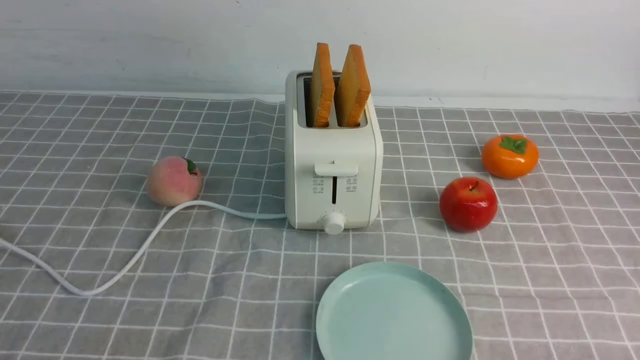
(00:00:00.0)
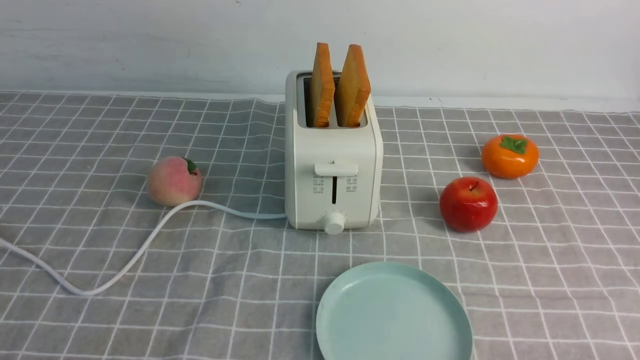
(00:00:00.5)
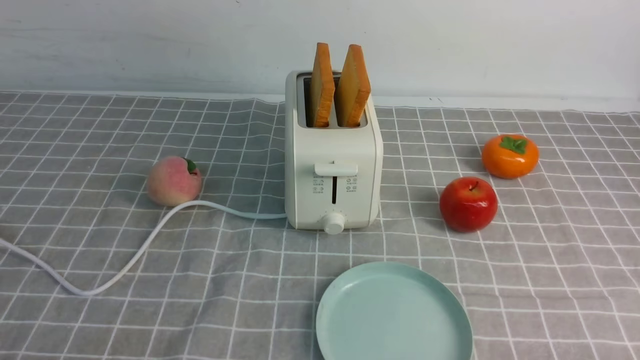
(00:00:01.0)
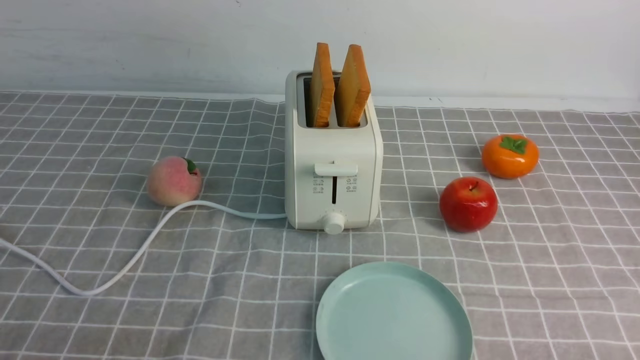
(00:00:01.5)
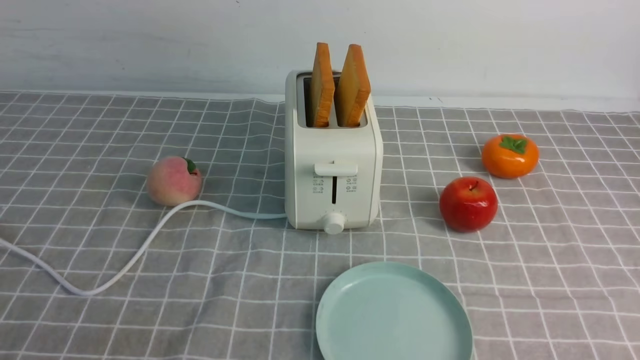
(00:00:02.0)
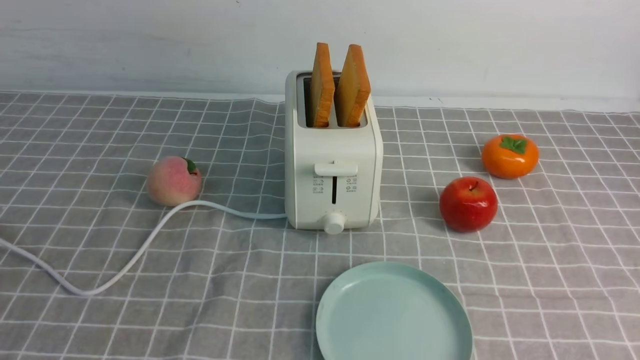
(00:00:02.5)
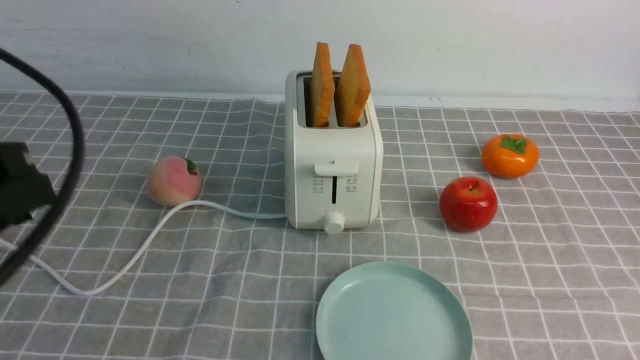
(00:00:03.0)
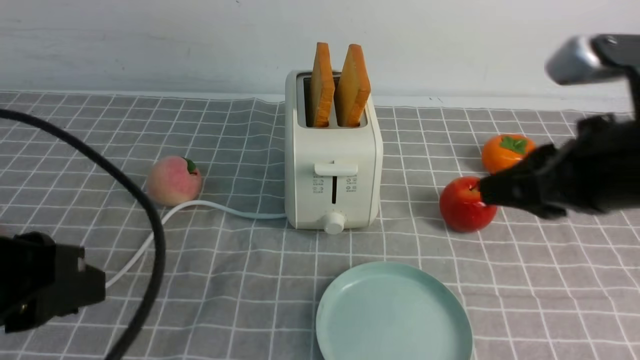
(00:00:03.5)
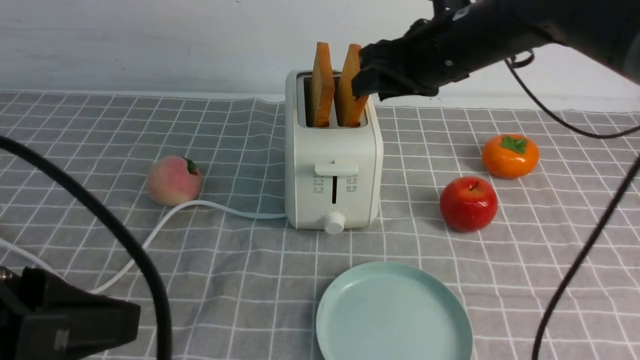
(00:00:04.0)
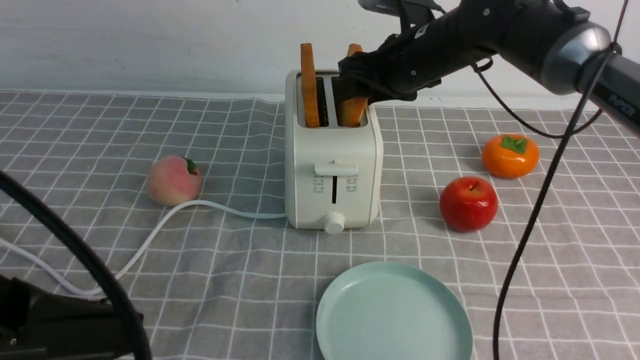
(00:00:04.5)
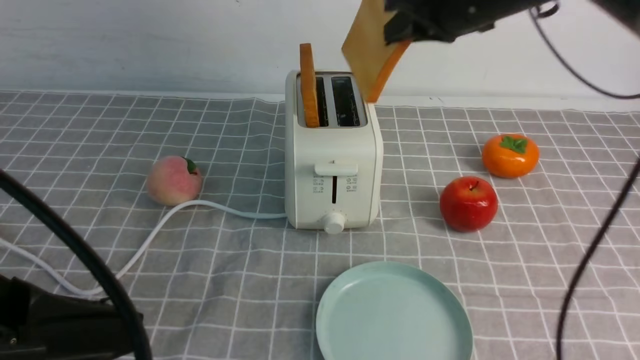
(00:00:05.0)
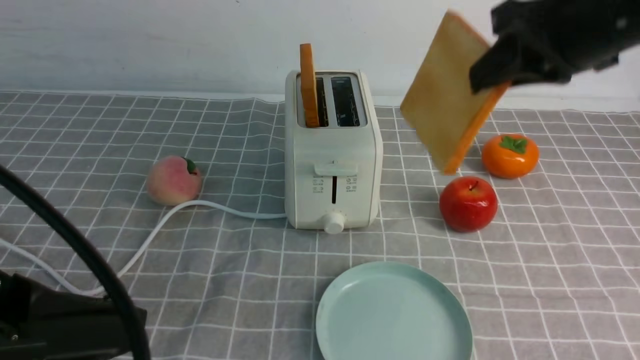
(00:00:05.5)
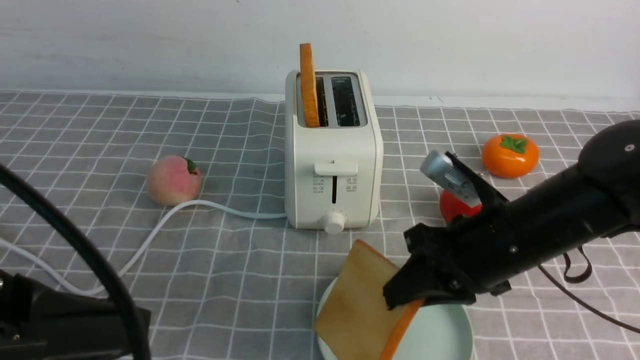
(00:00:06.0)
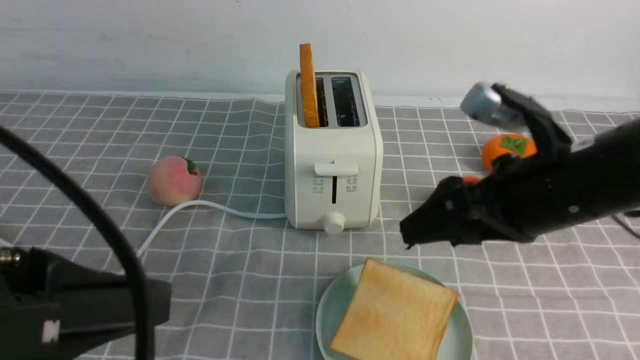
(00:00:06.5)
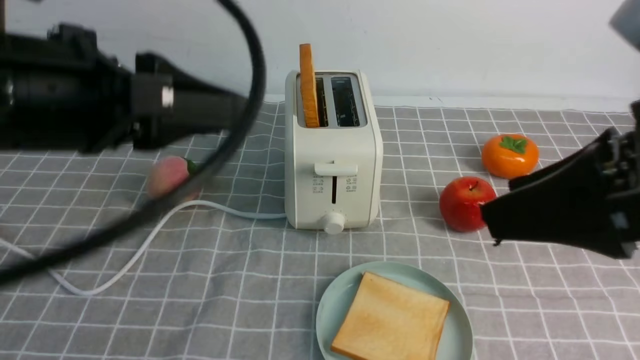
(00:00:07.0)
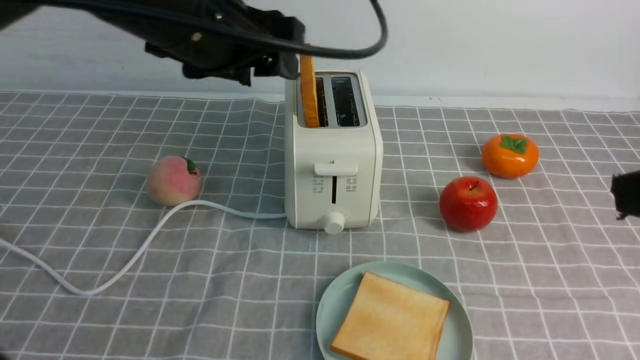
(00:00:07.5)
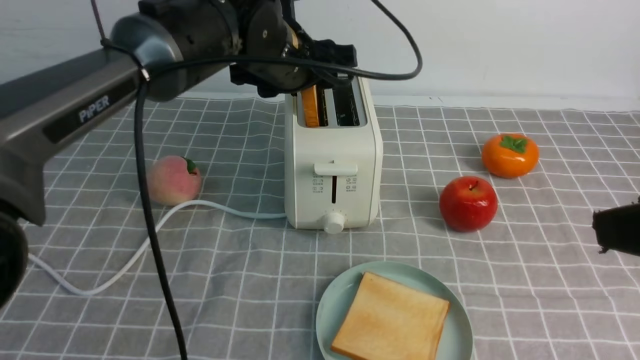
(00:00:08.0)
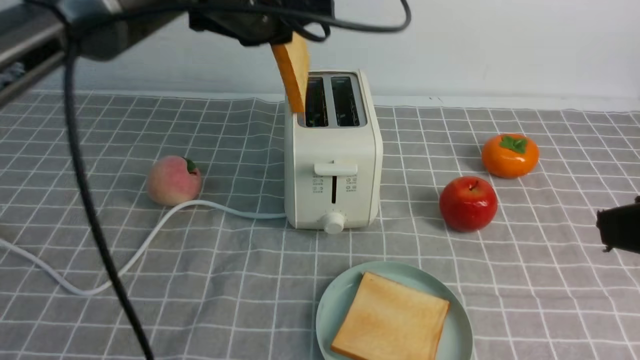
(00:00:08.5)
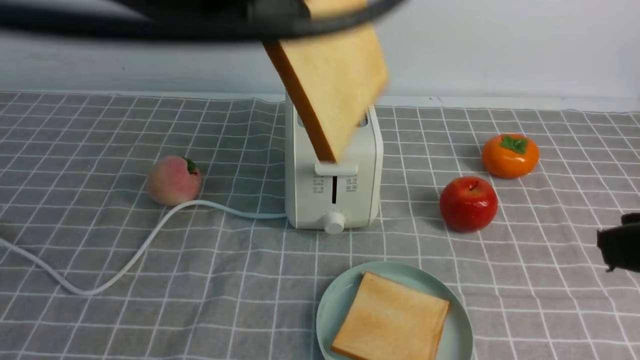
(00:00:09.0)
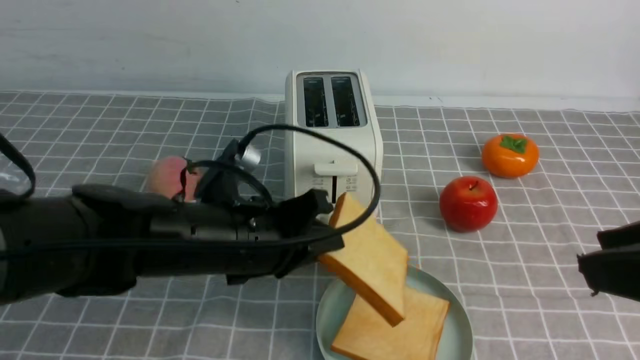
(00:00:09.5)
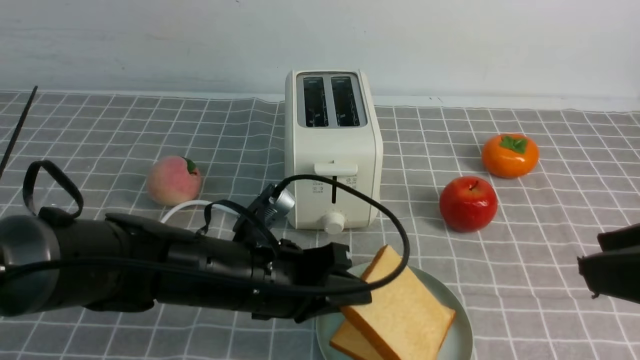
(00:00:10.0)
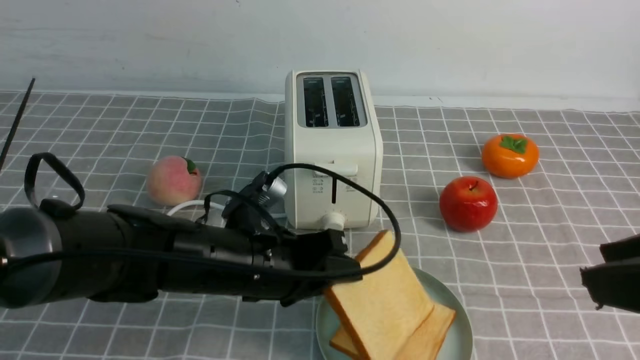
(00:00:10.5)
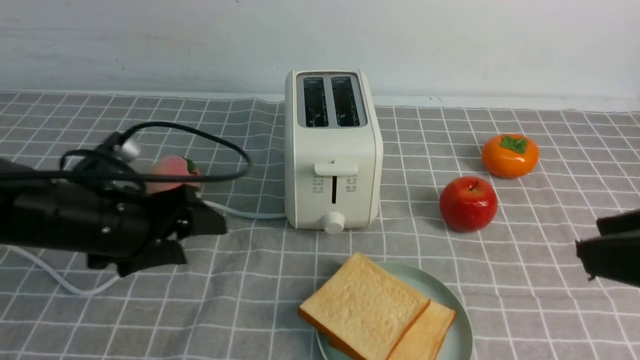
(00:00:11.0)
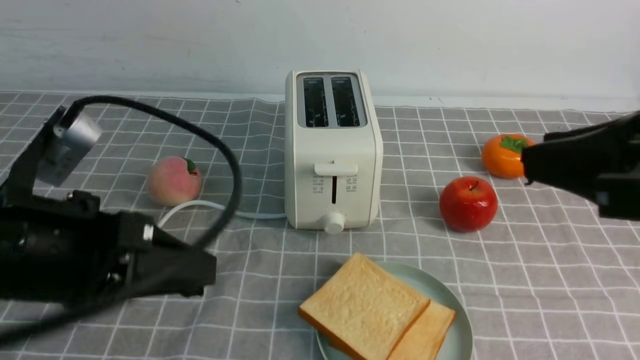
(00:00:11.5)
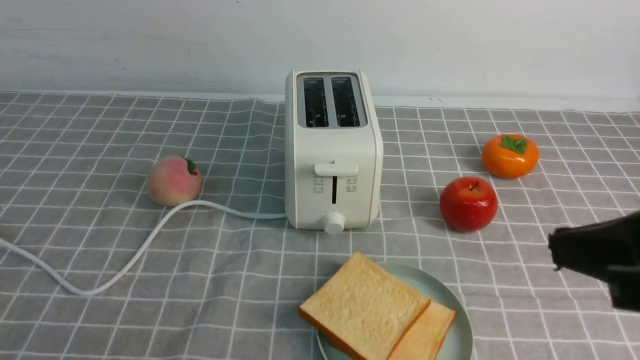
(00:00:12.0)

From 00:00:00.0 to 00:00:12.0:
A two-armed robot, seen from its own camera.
Task of the whole recording: take toasted bread from bread machine on grey coffee table place on plate.
Step, from 00:00:00.0 to 00:00:05.0: use the right arm to take out a slice of bread.
Step, from 00:00:05.5 to 00:00:06.5: use the right arm to put a slice of bread into the plate.
Step, from 00:00:07.0 to 00:00:08.5: use the left arm to take out a slice of bread.
Step, from 00:00:09.0 to 00:00:10.5: use the left arm to put a slice of bread into the empty plate.
From 00:00:02.0 to 00:00:04.0: The right gripper heads forward and to the left, covering approximately 40 cm. The left gripper is displaced upward, to the right and forward by some 15 cm.
From 00:00:04.0 to 00:00:06.0: The right gripper goes some 15 cm backward and downward, and closes its fingers.
From 00:00:06.0 to 00:00:08.0: The right gripper moves upward, backward and to the right, approximately 20 cm, and opens. Meanwhile the left gripper shifts approximately 35 cm forward and to the right.
From 00:00:08.0 to 00:00:10.0: The left gripper is displaced backward and downward by approximately 20 cm, and closes its fingers.
From 00:00:10.0 to 00:00:12.0: The left gripper shifts some 30 cm backward, to the left and upward, and opens, then closes once more. The right gripper closes.

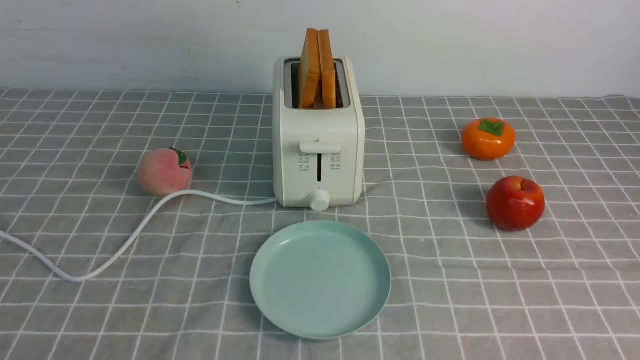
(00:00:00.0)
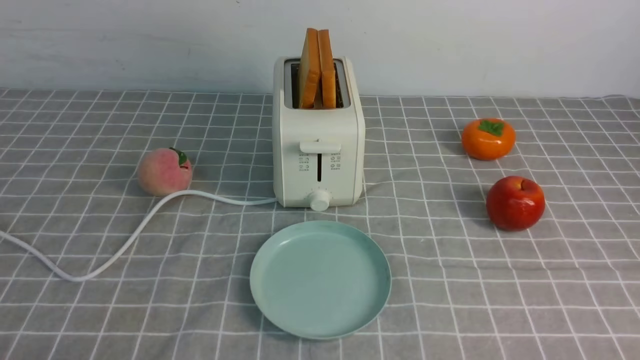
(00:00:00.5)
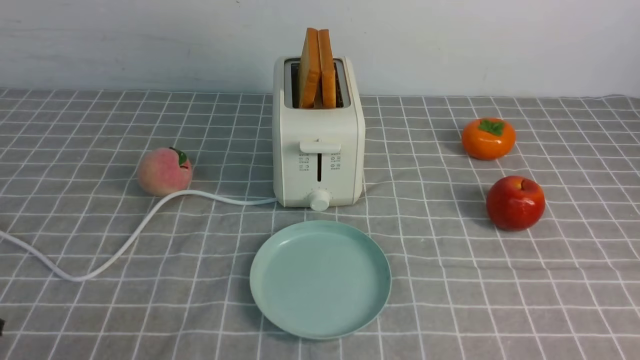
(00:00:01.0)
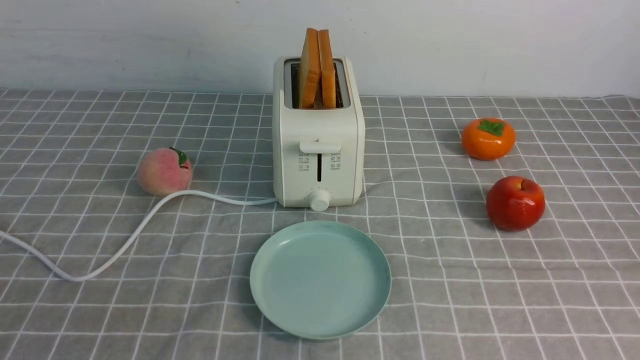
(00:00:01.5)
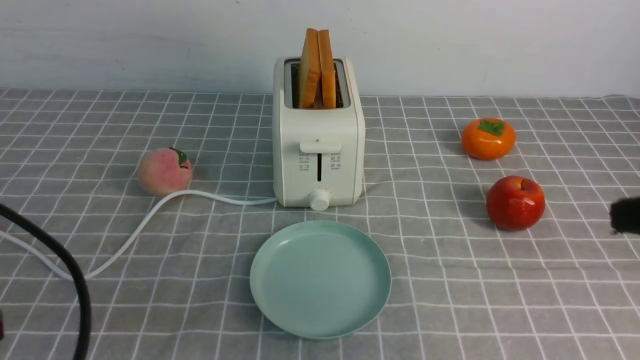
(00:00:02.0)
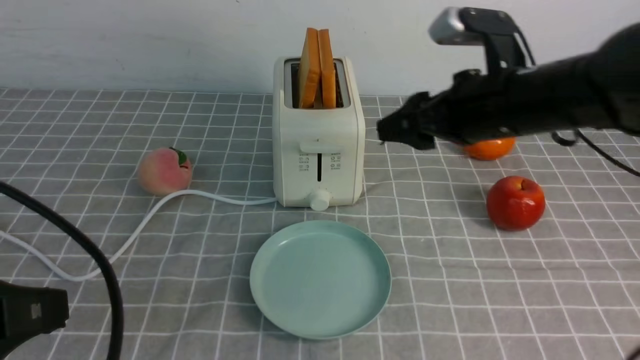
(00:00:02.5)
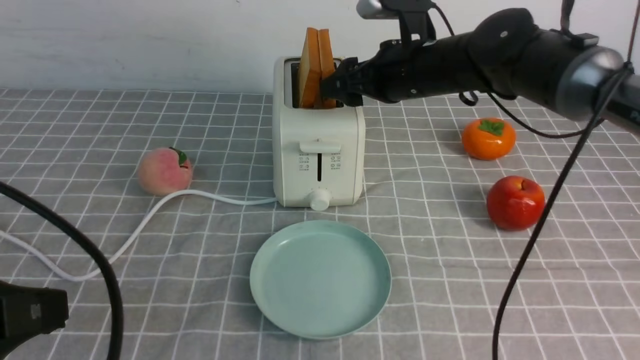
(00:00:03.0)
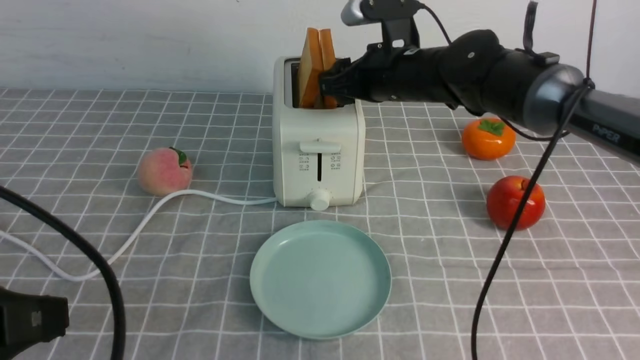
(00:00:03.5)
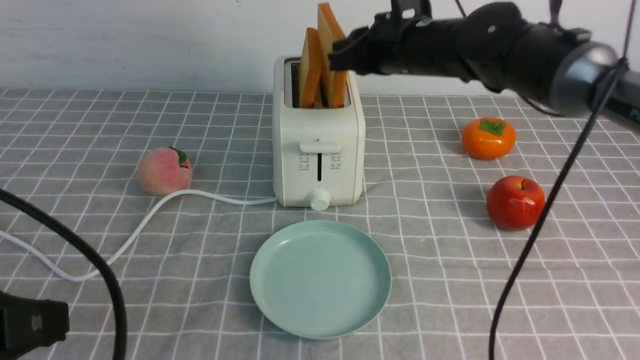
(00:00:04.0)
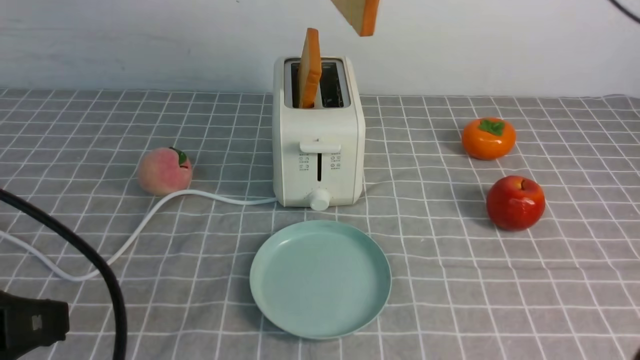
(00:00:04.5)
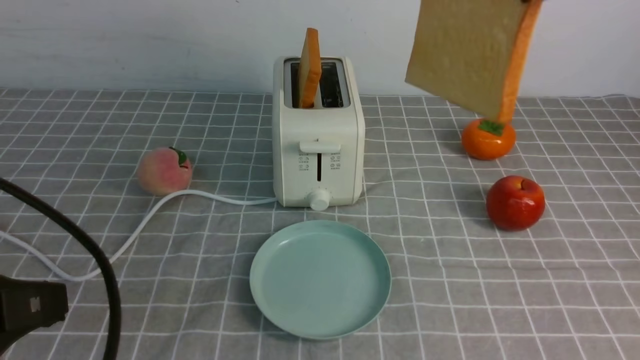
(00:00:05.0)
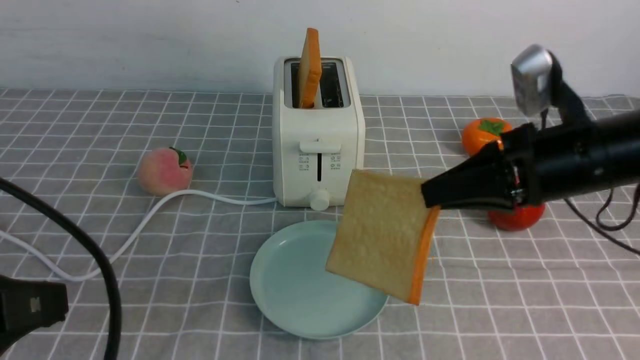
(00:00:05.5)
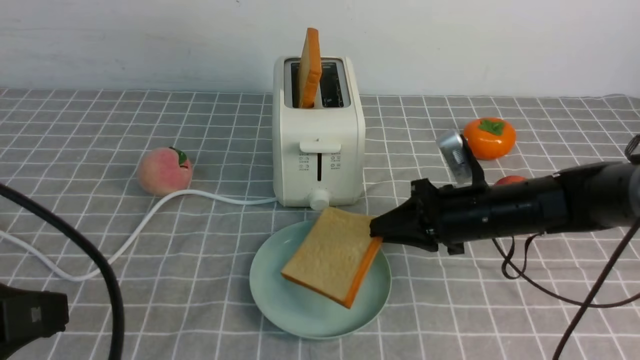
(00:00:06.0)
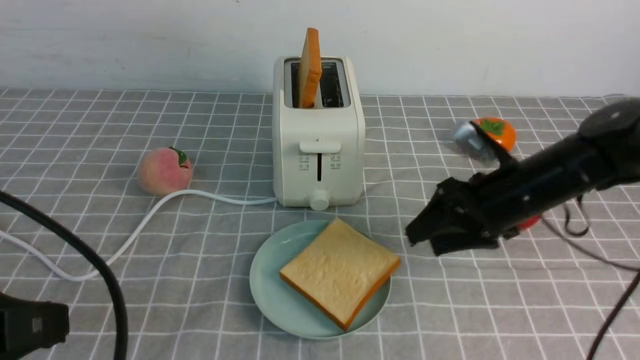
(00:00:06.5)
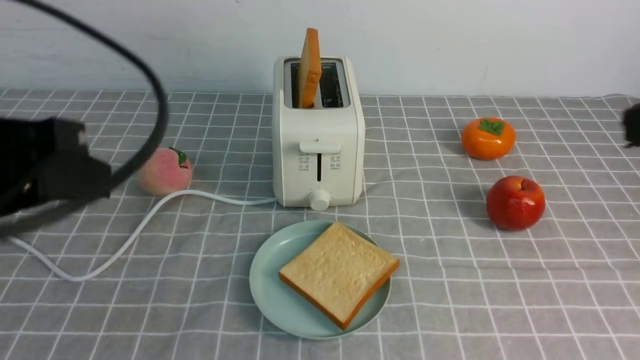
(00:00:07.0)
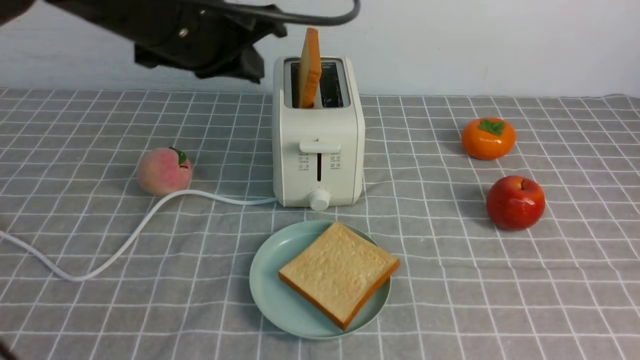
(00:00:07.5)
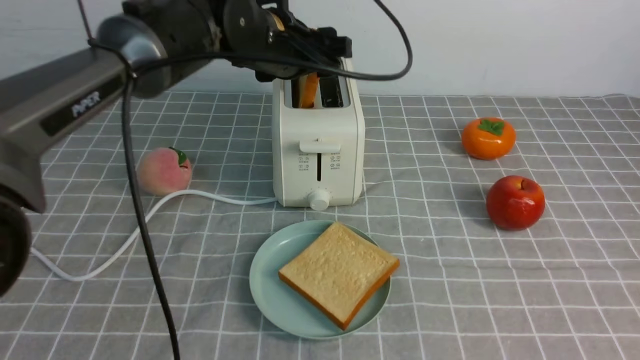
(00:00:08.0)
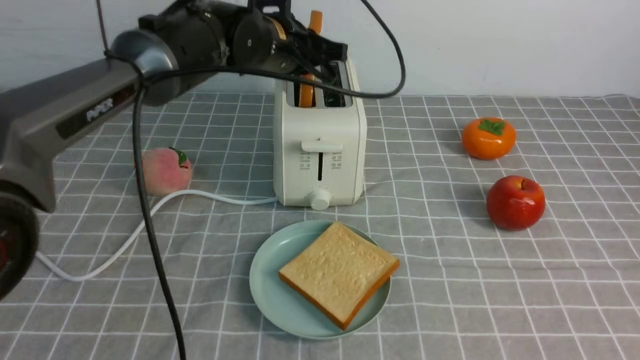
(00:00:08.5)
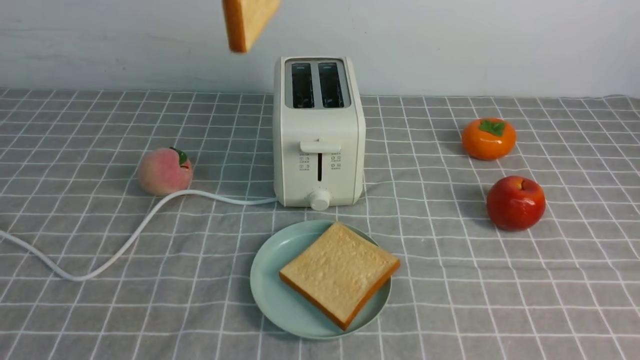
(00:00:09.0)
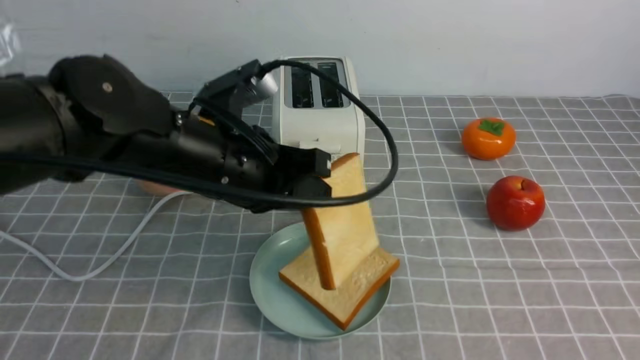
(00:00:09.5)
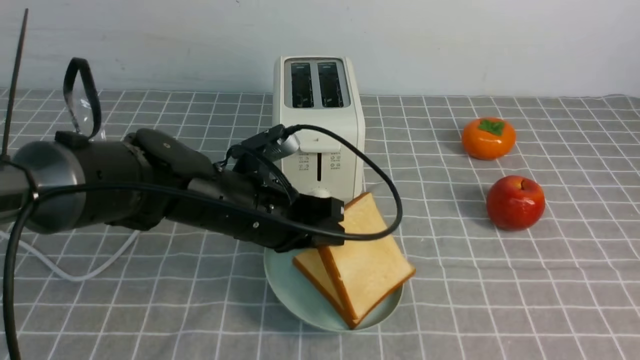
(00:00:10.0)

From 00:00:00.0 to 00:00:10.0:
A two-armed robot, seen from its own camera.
Task of the whole recording: take toasted bread from bread machine on grey coffee table place on plate.
Step, from 00:00:00.0 to 00:00:04.0: use the right arm to take out a slice of bread.
Step, from 00:00:04.5 to 00:00:06.5: use the right arm to put a slice of bread into the plate.
Step, from 00:00:07.0 to 00:00:08.5: use the left arm to take out a slice of bread.
From 00:00:02.0 to 00:00:04.0: The right gripper heads forward and to the left, covering roughly 35 cm, and opens, then closes again.
From 00:00:04.0 to 00:00:06.0: The right gripper moves downward, backward and to the right, some 20 cm.
From 00:00:06.0 to 00:00:08.0: The left gripper goes about 35 cm forward and to the right, and opens up, while the right gripper shifts some 30 cm backward, and opens, then closes once more.
From 00:00:08.0 to 00:00:10.0: The left gripper travels backward and downward by roughly 15 cm, and closes its fingers.
